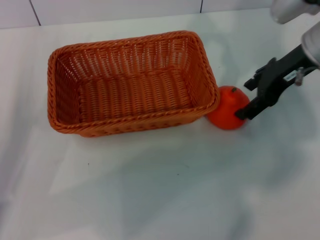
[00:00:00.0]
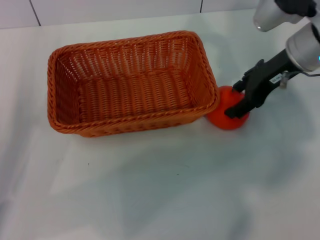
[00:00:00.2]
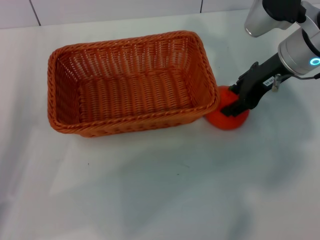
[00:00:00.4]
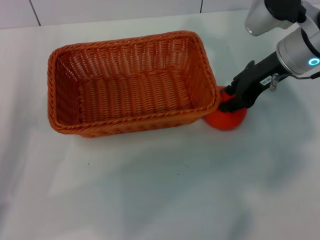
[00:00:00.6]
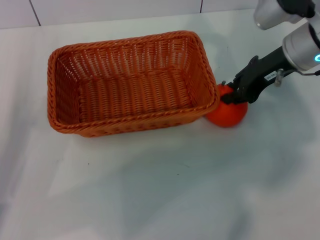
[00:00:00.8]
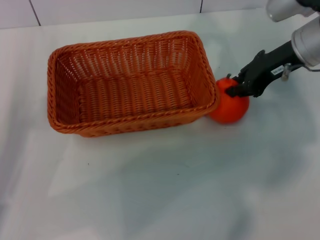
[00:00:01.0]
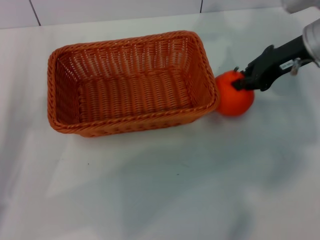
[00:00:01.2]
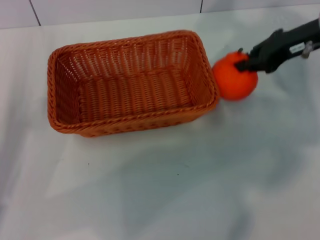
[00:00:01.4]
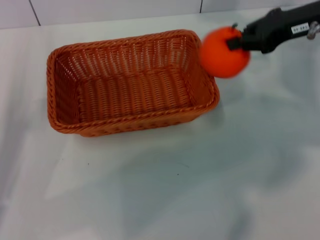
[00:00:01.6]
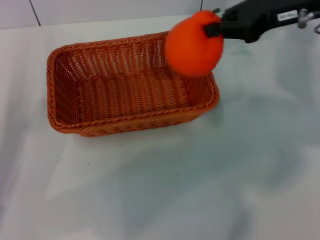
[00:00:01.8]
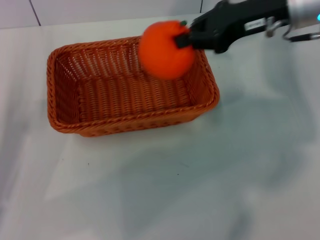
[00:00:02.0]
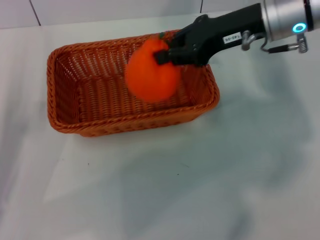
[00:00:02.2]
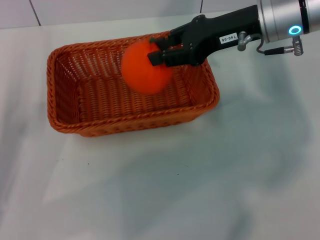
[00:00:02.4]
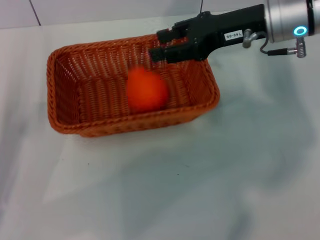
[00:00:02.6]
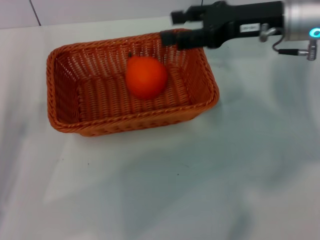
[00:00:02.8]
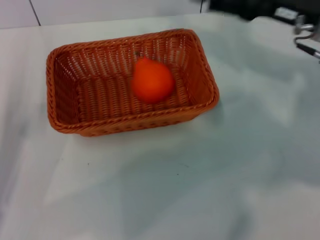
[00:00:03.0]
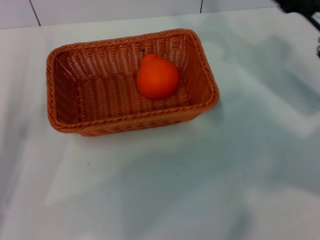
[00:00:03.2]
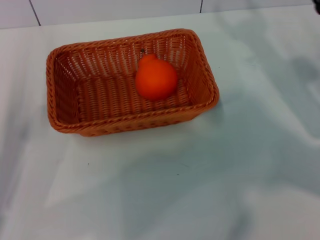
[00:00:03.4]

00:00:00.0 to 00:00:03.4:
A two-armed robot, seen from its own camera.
Task of the whole recording: the left gripper pick up the yellow basket and place it horizontally in the middle of the table, the right gripper pick up the orange and place it into the yellow basket.
Step, 00:00:01.6 to 00:00:02.6: Place the orange into the light basket with the right gripper.
00:00:00.0 to 00:00:01.6: The right gripper closes up.
00:00:01.6 to 00:00:03.4: The right gripper moves downward and backward, about 15 cm, and opens.
